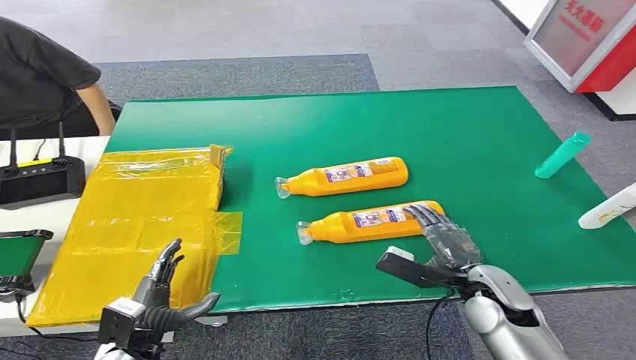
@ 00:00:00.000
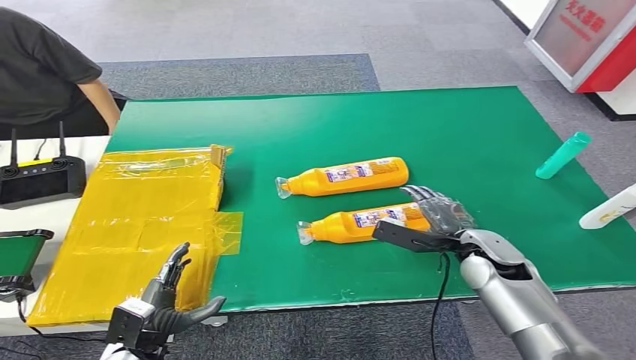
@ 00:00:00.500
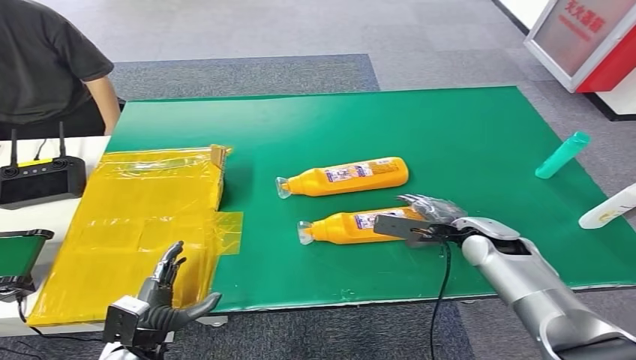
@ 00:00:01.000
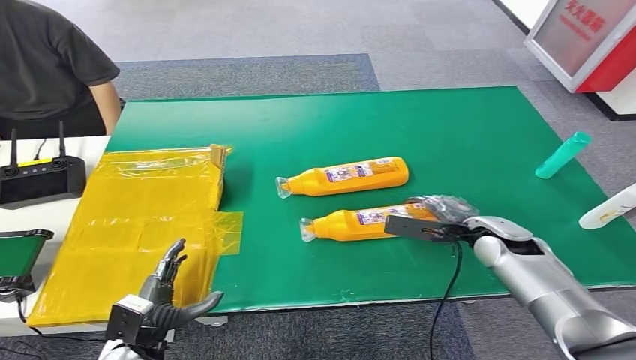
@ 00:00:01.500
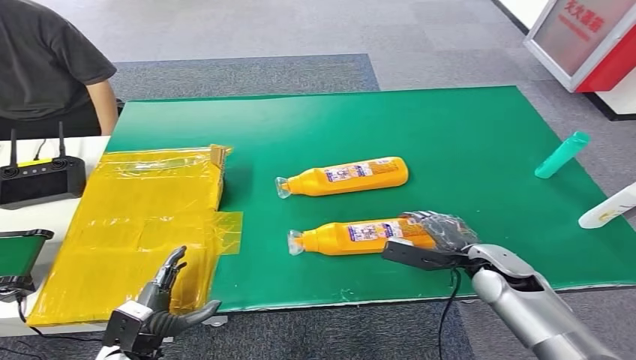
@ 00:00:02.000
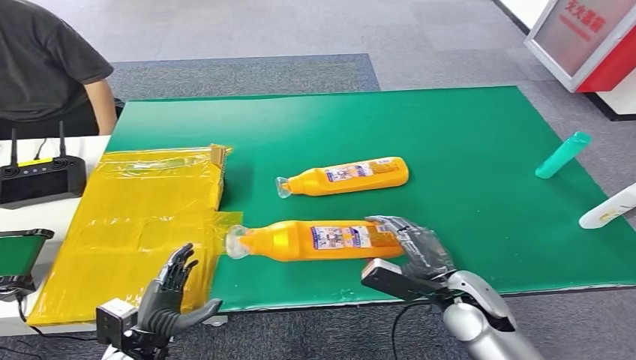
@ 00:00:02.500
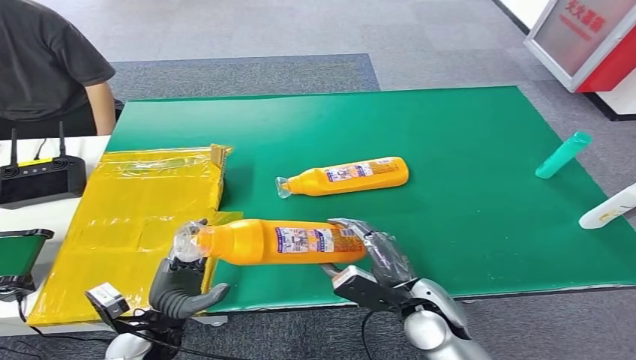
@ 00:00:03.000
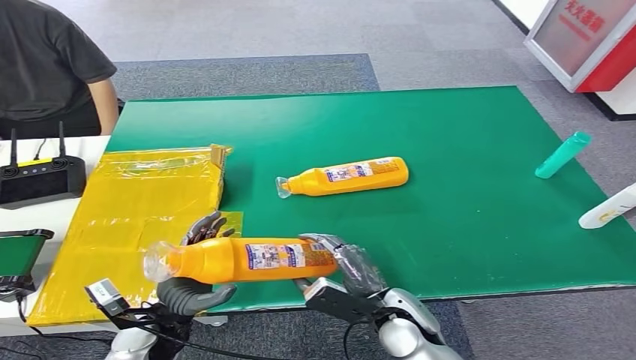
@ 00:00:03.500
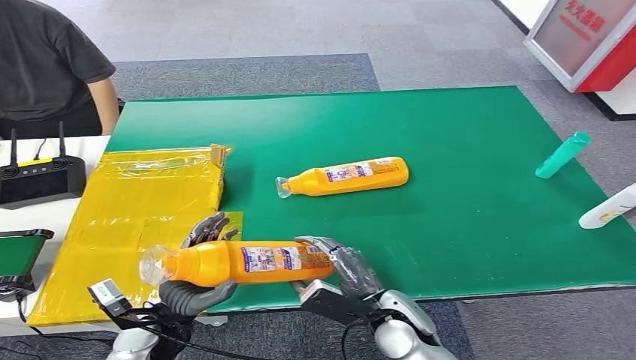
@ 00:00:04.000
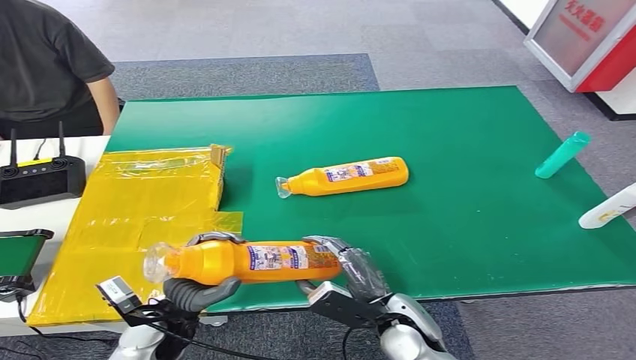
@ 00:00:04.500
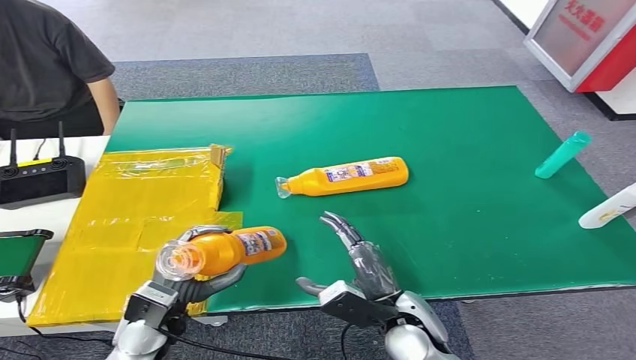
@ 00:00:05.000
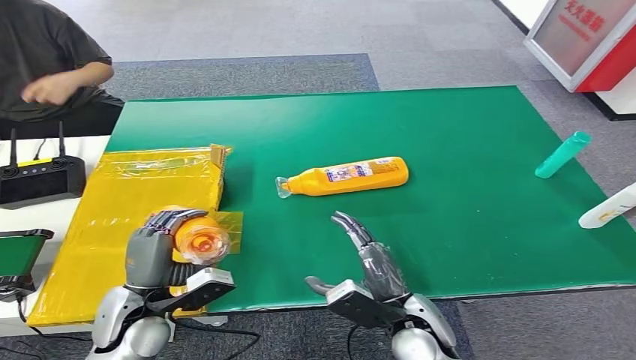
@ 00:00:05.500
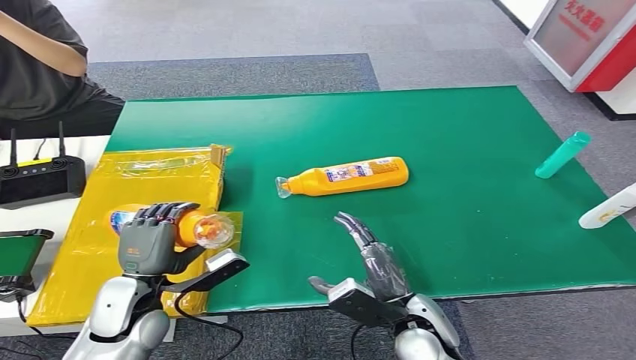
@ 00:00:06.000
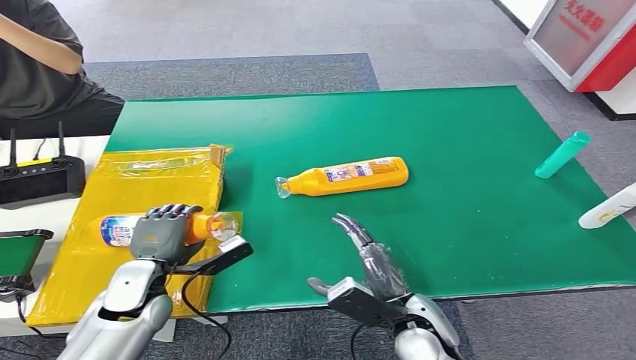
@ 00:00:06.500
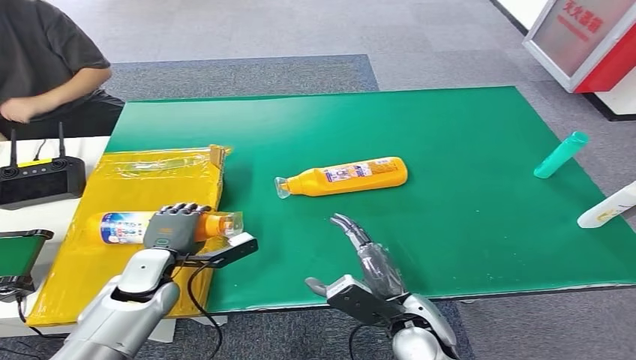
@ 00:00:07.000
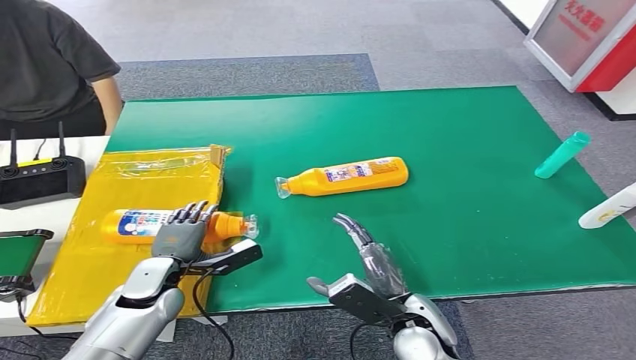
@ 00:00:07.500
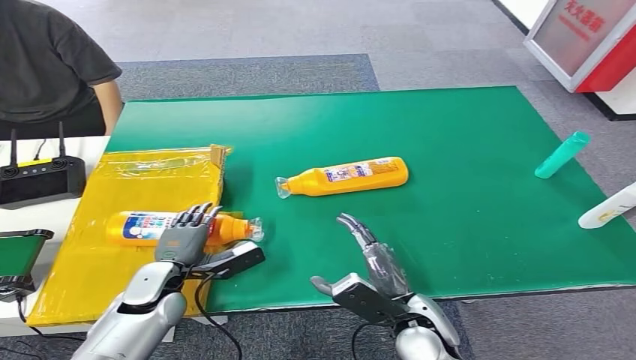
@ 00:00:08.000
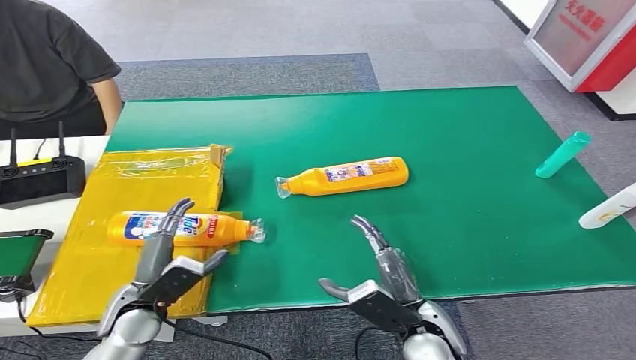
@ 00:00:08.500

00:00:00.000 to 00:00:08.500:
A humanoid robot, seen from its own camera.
Step, 00:00:00.000 to 00:00:02.500: Pick up the bottle from the table.
Step, 00:00:04.000 to 00:00:08.500: Turn the bottle to the front side.
00:00:02.000 to 00:00:04.000: The right hand is displaced to the left and backward by some 20 cm. The left hand heads upward and to the right, covering roughly 10 cm.
00:00:04.000 to 00:00:06.500: The left hand heads forward, covering roughly 5 cm.

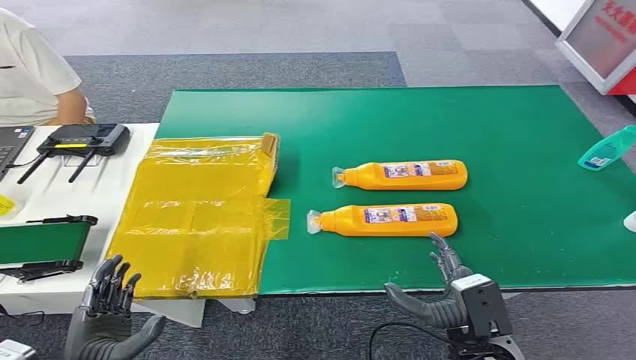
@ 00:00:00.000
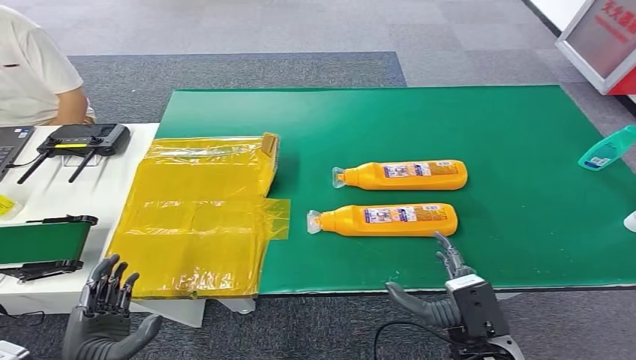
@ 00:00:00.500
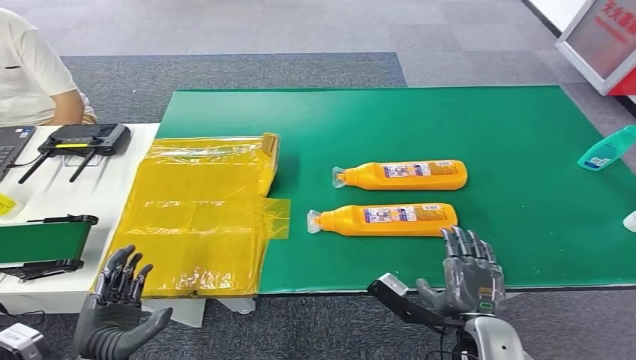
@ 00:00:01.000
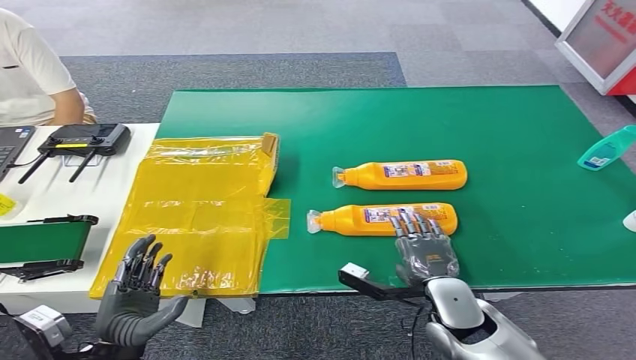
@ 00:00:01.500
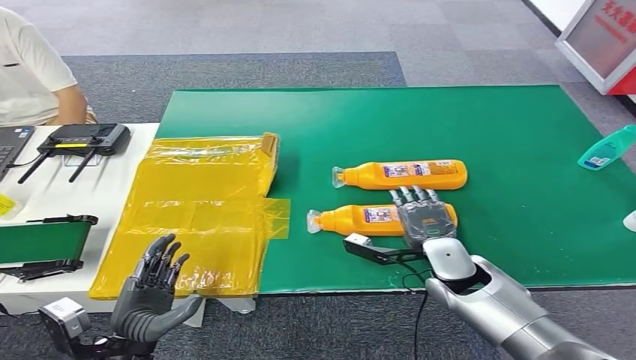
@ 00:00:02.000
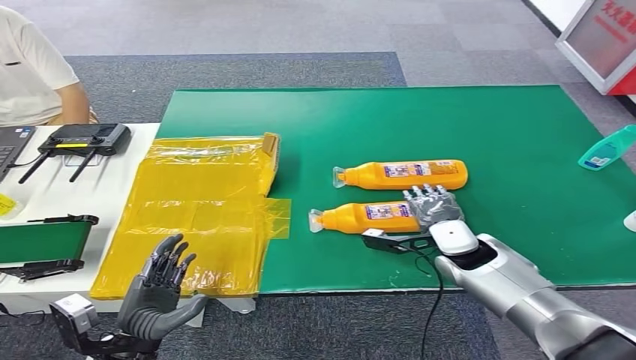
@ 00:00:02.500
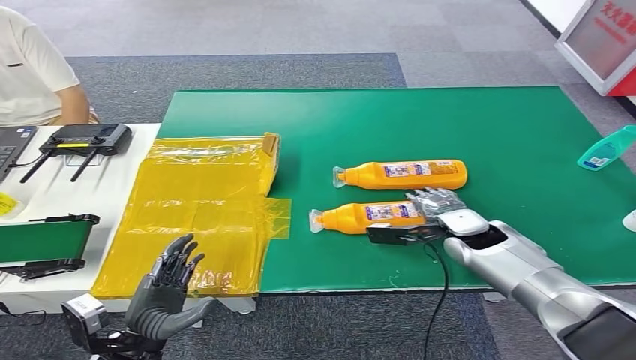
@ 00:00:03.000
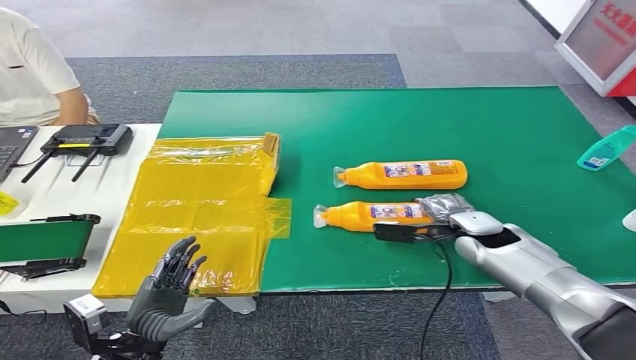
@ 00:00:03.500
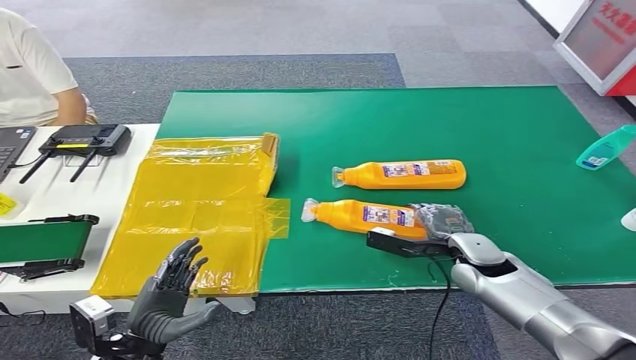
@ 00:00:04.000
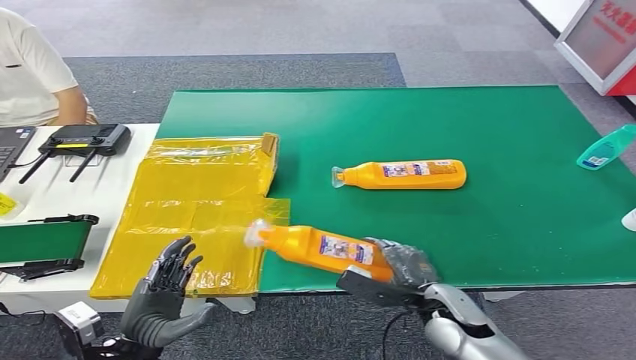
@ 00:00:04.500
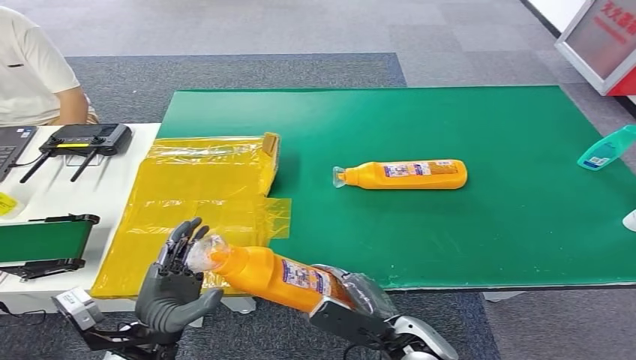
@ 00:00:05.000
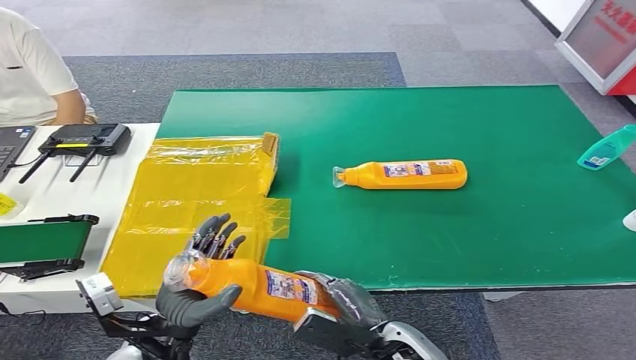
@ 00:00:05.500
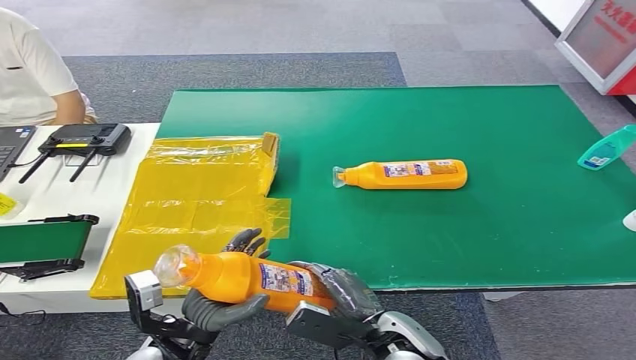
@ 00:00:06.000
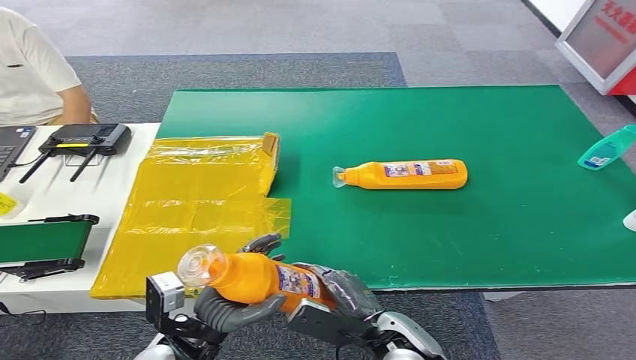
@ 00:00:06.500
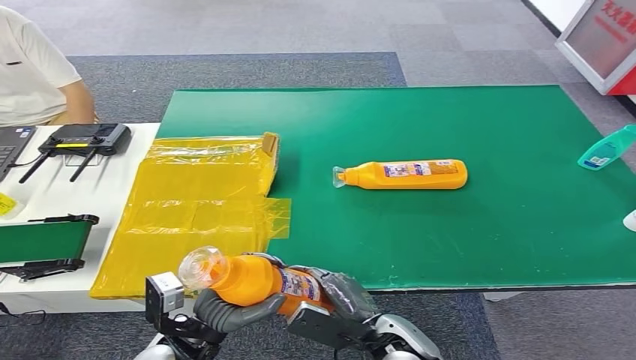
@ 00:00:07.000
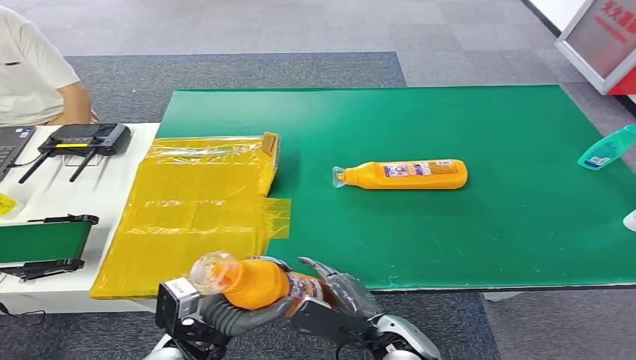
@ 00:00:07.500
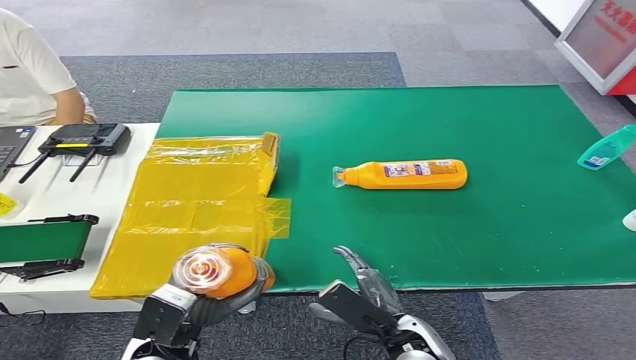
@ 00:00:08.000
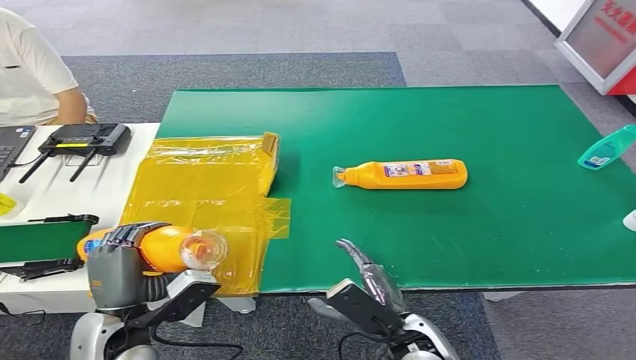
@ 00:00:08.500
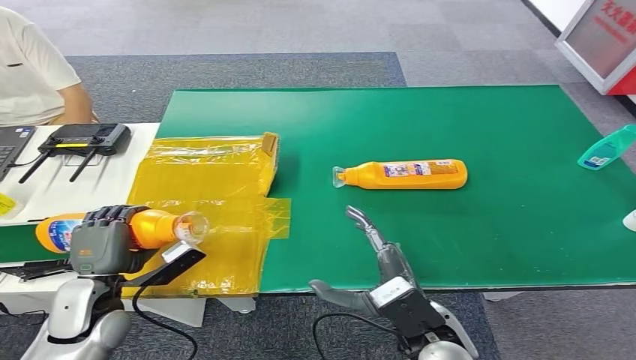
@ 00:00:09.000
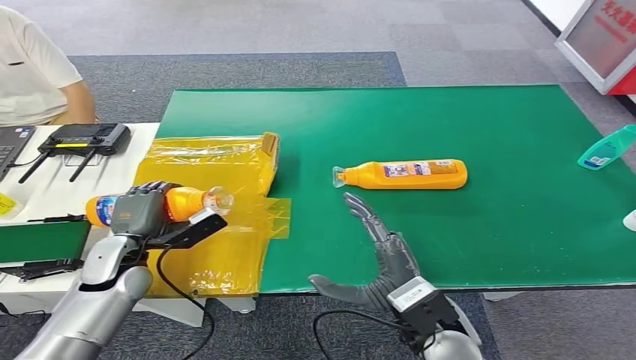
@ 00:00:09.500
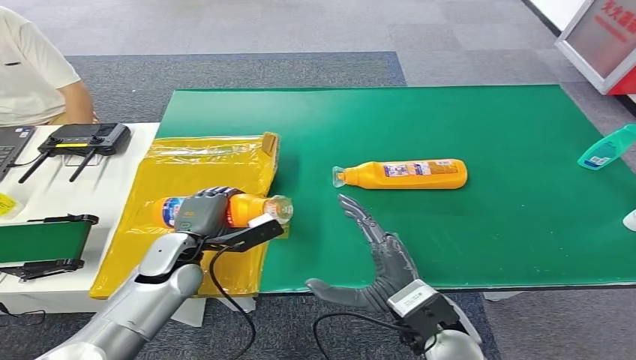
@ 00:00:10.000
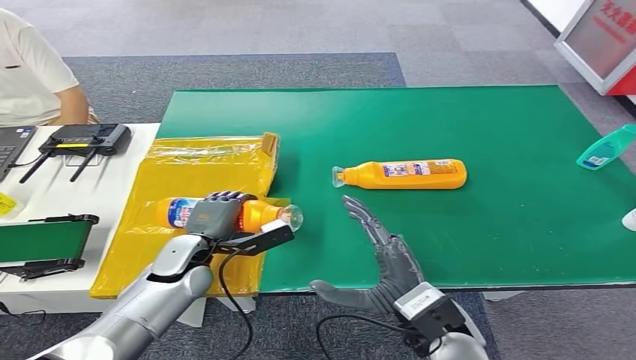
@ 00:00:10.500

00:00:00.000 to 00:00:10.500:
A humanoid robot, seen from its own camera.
Step, 00:00:00.000 to 00:00:05.500: Pick up the bottle from the table.
00:00:04.000 to 00:00:06.500: The right hand is displaced backward and to the left by some 20 cm. The left hand is displaced to the right by some 10 cm.
00:00:06.500 to 00:00:08.500: The left hand moves to the left, some 5 cm.
00:00:08.500 to 00:00:10.500: The right hand shifts approximately 10 cm upward, while the left hand shifts approximately 15 cm forward.

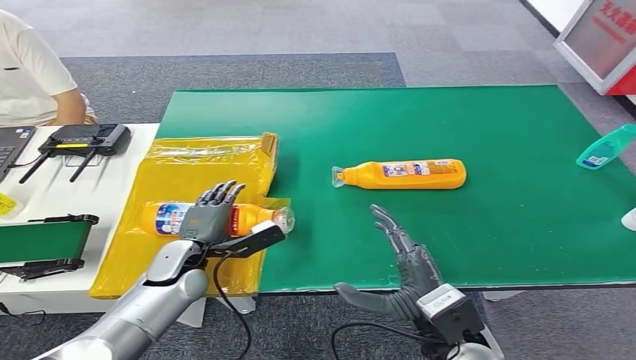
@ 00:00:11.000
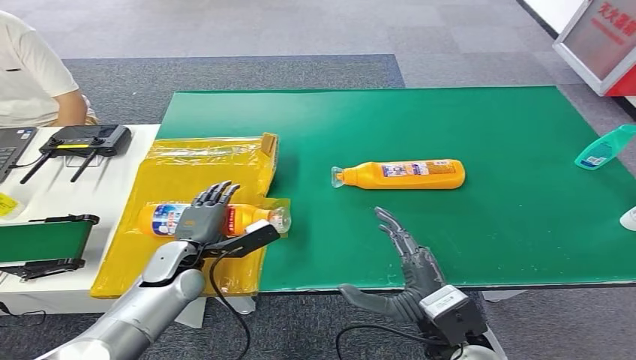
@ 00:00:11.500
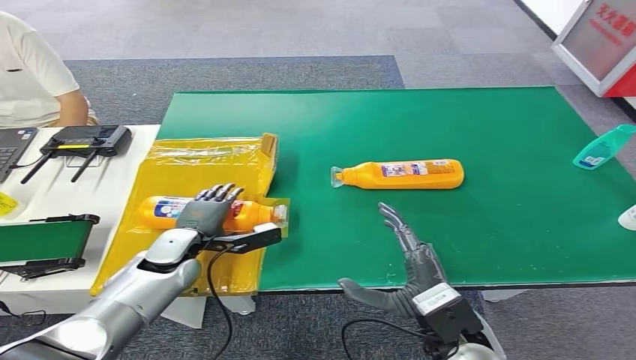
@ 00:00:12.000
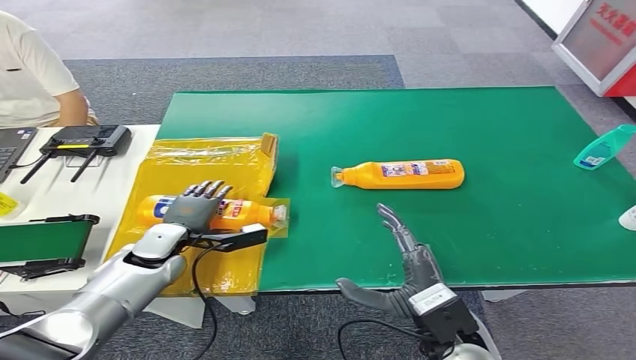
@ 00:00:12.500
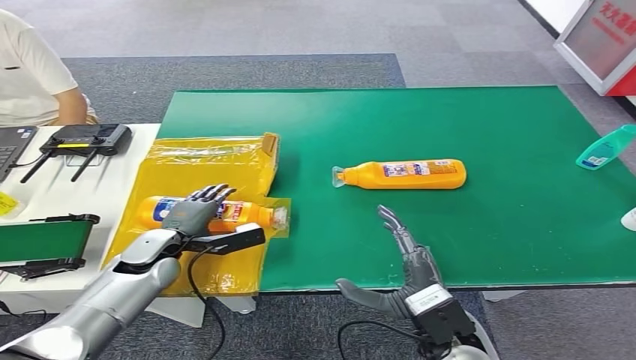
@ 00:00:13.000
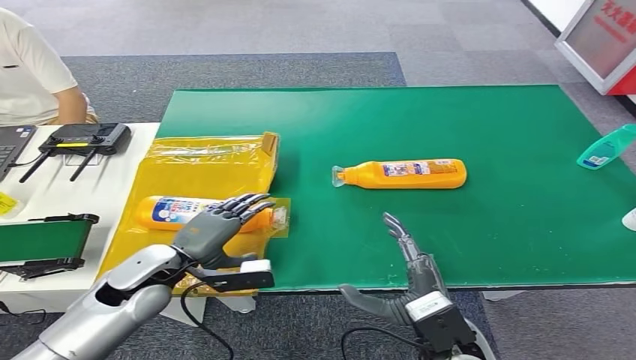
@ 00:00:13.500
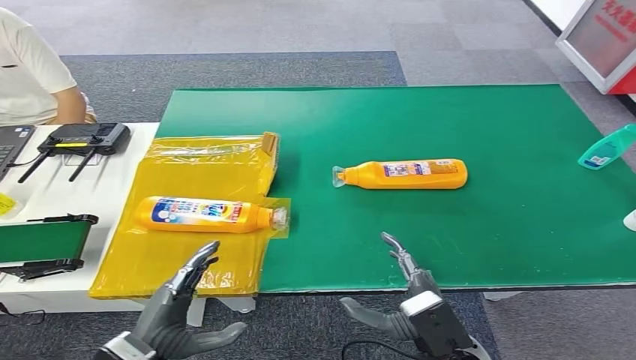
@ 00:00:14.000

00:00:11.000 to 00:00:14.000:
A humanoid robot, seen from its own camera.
Step, 00:00:11.000 to 00:00:14.000: Turn the bottle to the front side.
00:00:11.000 to 00:00:12.500: The left hand changes place by some 5 cm.
00:00:12.500 to 00:00:14.000: The left hand heads backward, covering about 20 cm.
